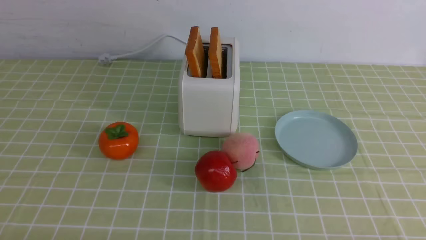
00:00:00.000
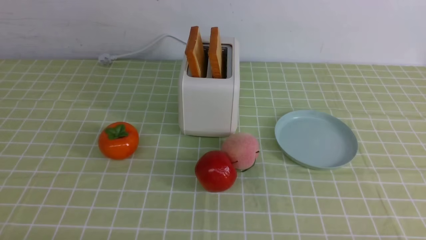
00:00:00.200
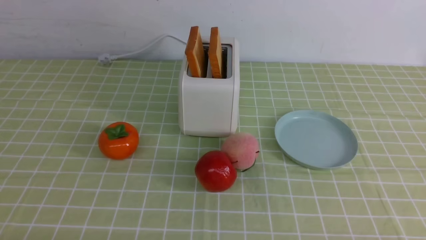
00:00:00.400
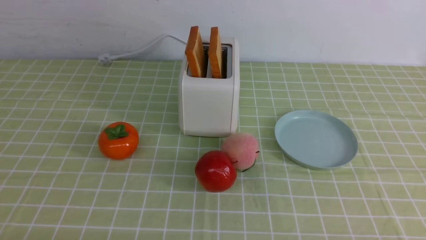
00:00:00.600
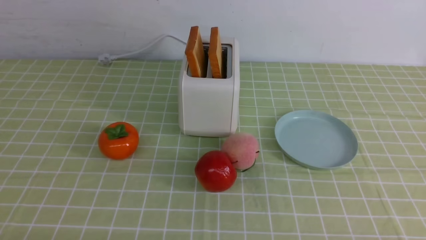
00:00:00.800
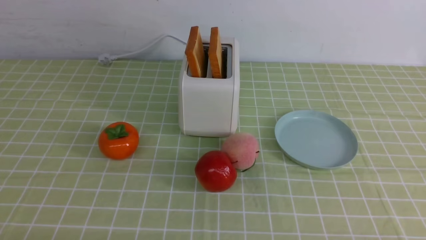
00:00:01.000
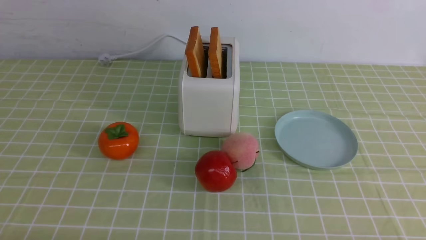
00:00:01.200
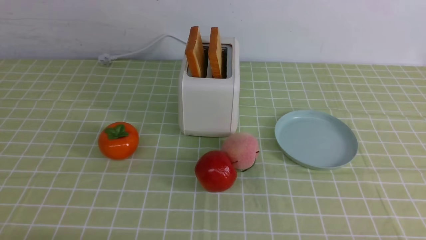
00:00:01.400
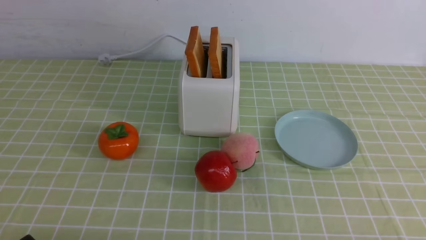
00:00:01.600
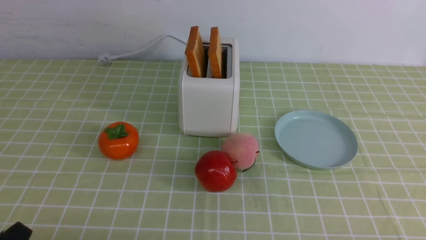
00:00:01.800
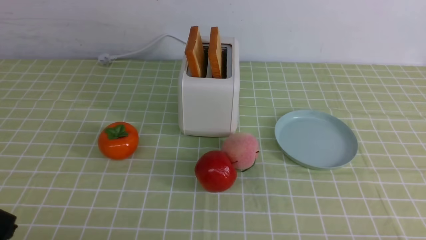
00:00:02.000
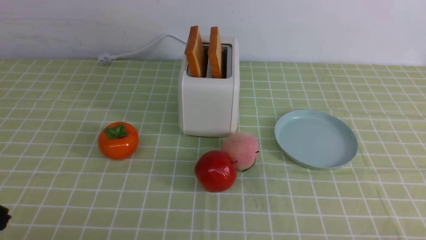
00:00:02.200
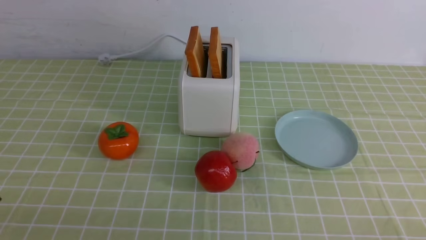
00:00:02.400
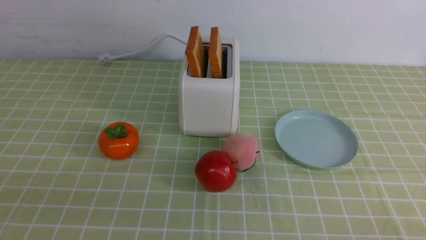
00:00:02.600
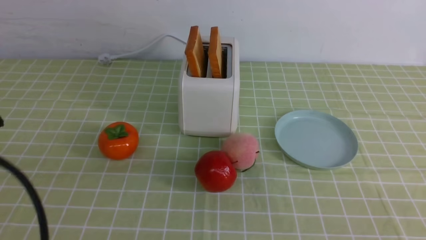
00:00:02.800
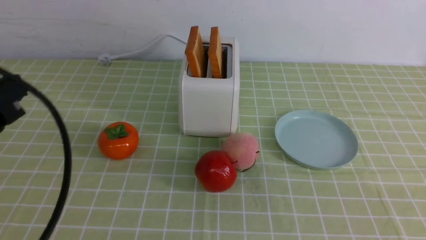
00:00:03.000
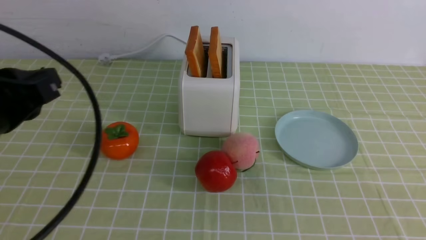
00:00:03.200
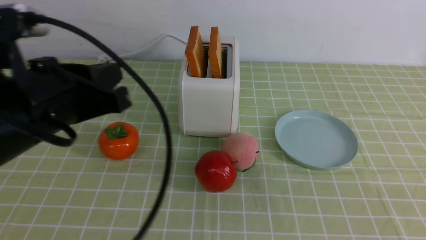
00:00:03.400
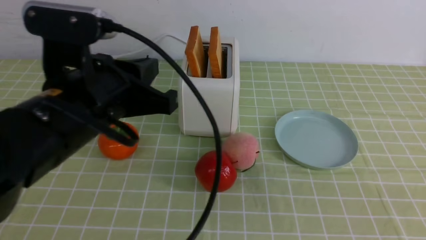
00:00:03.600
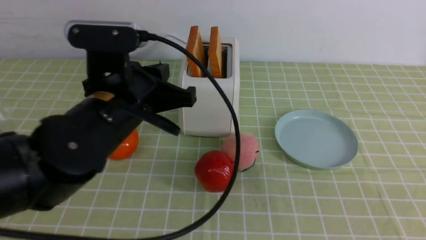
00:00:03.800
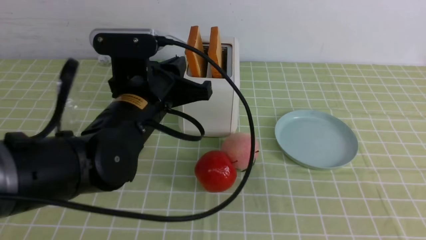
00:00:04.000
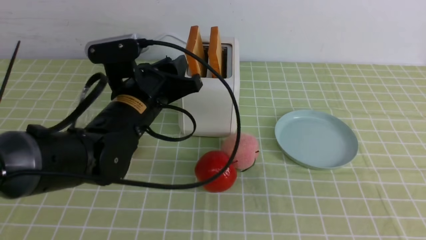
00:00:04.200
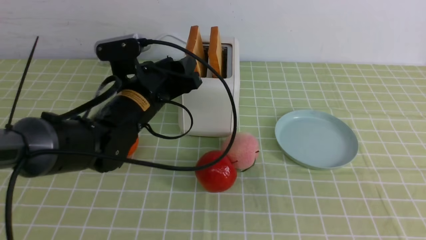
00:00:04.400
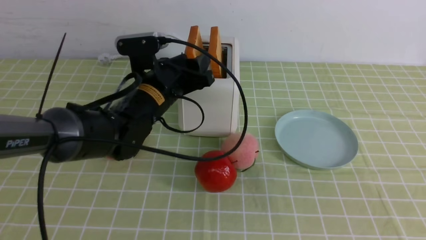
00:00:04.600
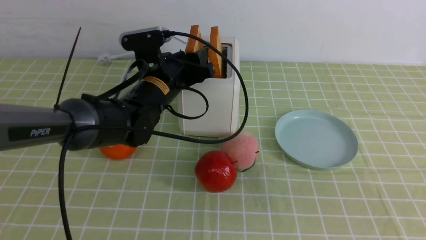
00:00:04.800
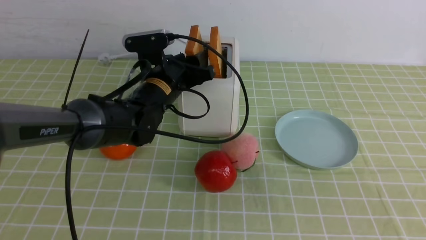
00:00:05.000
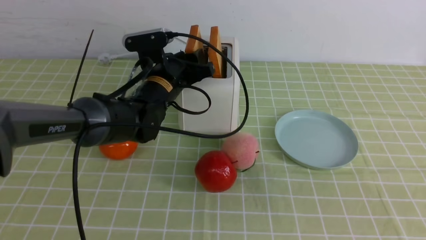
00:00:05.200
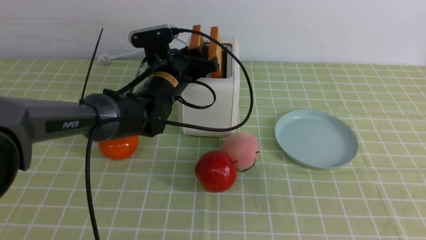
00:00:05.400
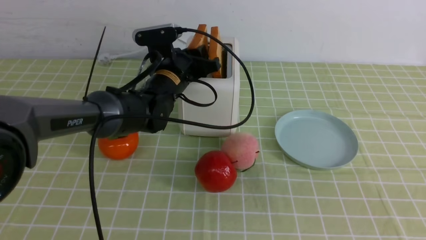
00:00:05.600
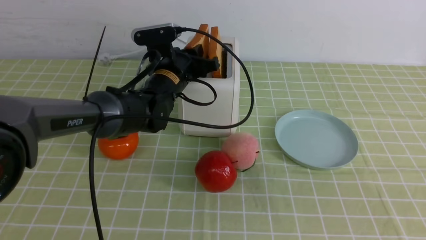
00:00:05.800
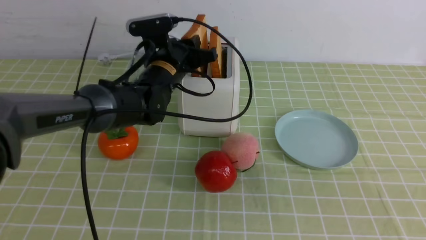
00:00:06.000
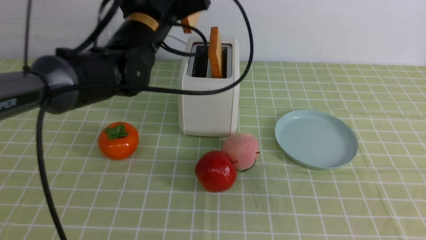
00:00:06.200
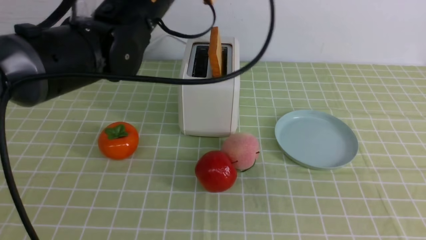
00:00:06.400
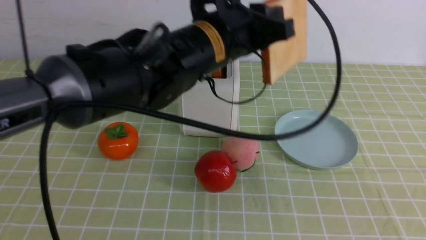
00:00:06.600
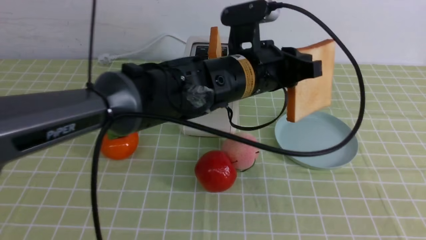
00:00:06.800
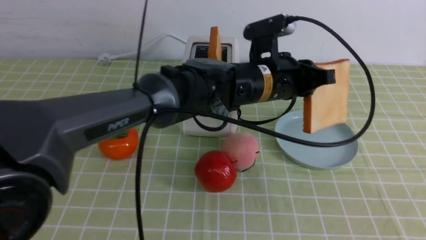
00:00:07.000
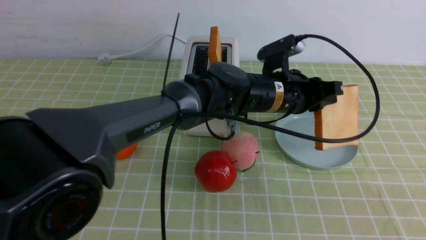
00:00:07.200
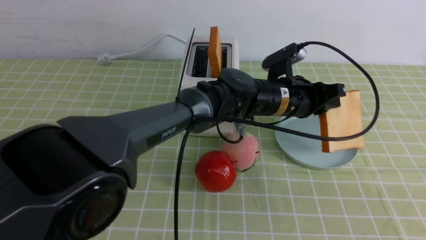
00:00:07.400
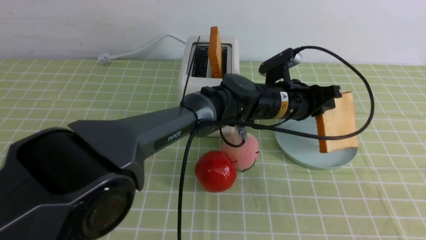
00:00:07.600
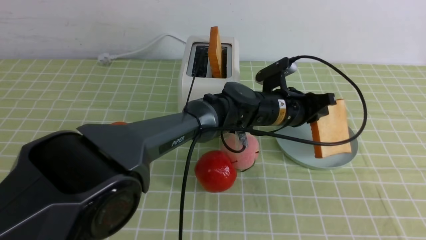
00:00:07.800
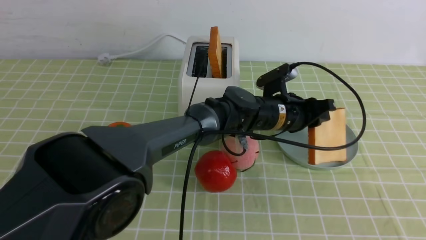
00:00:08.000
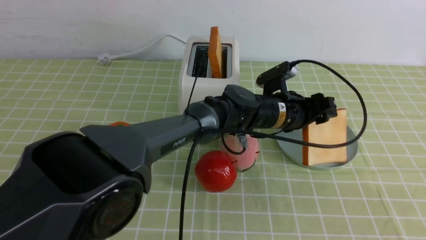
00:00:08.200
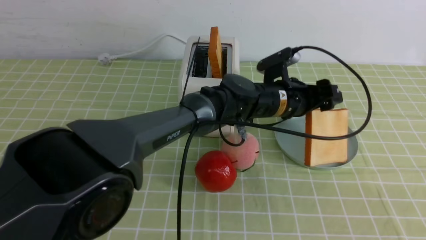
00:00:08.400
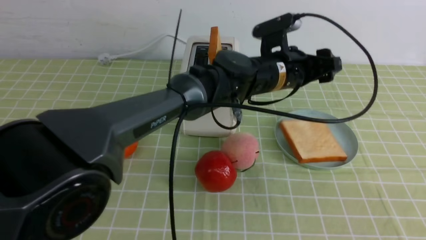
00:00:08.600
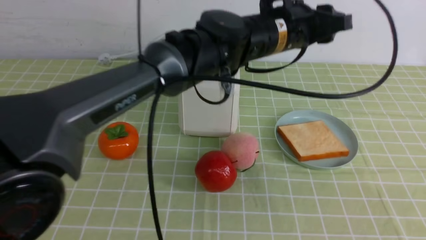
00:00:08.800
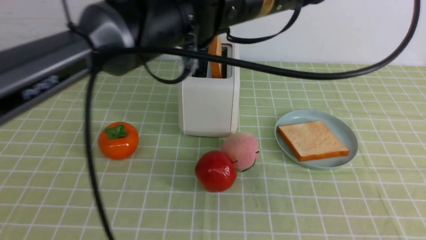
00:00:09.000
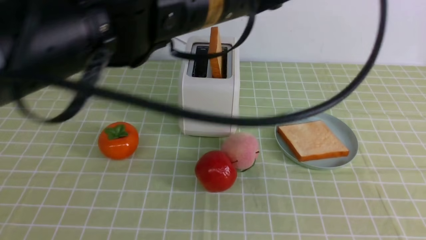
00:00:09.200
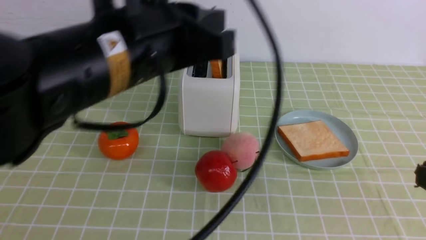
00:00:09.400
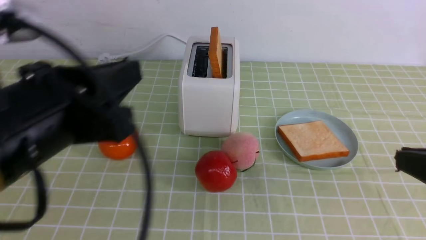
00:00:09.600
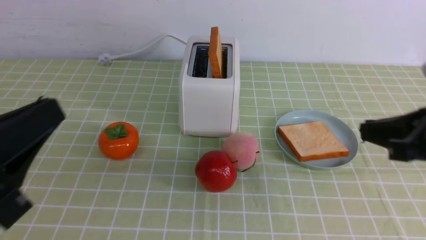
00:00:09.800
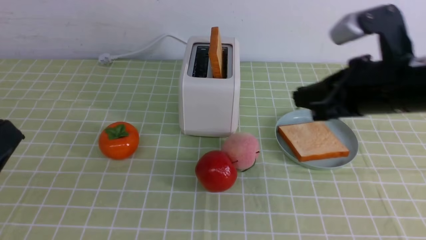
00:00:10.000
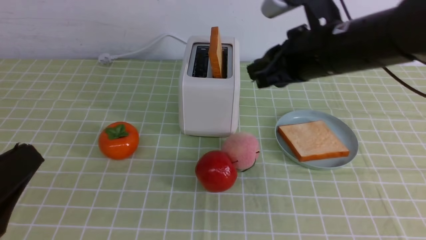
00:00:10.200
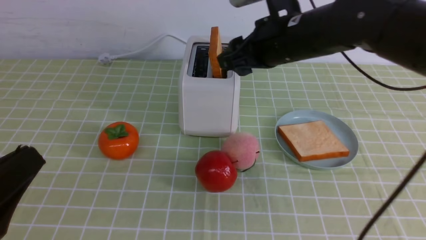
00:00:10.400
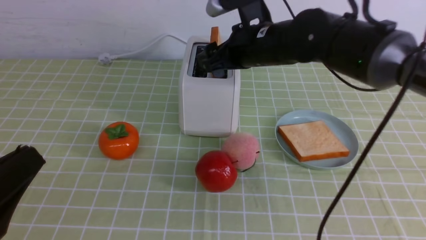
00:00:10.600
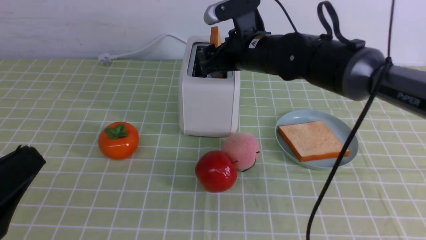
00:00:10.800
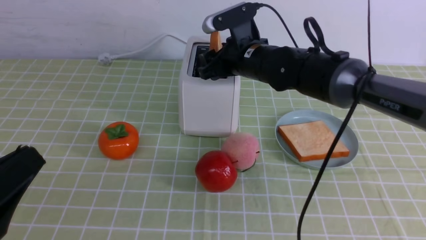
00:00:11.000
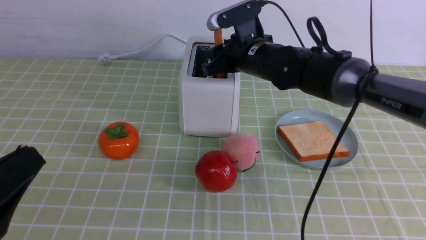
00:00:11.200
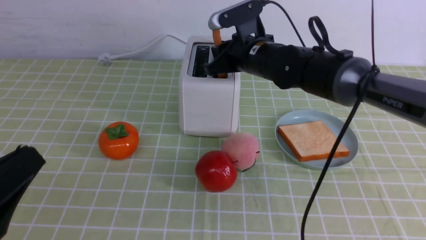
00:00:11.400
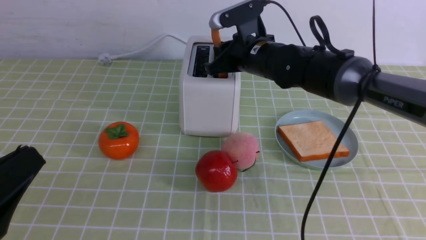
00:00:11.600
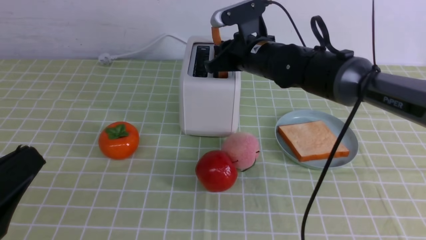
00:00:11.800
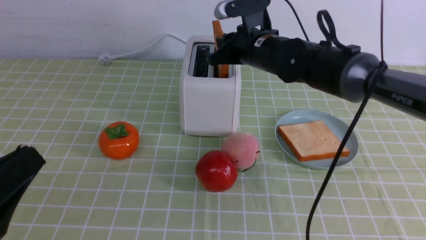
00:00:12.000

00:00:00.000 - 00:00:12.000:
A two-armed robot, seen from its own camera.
Task of the whole recording: take toasted bread from bread machine on green coffee tablecloth place on plate.
Step, 00:00:00.000 - 00:00:06.200: use the left arm to take out a slice of bread.
Step, 00:00:06.400 - 00:00:08.600: use the left arm to put a slice of bread into the empty plate.
00:00:01.600 - 00:00:03.000: The left gripper moves upward and forward, about 20 cm, and closes its fingers.
00:00:03.000 - 00:00:04.400: The left gripper is displaced forward, to the right and downward by approximately 25 cm, and opens.
00:00:04.400 - 00:00:06.000: The left gripper is displaced forward by roughly 5 cm, and closes.
00:00:06.000 - 00:00:07.600: The left gripper heads to the right, covering some 20 cm.
00:00:07.600 - 00:00:09.000: The left gripper moves upward and to the left, roughly 20 cm, and opens, then closes again.
00:00:09.000 - 00:00:10.400: The left gripper is displaced to the left, backward and downward by approximately 40 cm, while the right gripper goes roughly 35 cm forward and to the left, and opens its fingers.
00:00:10.400 - 00:00:12.000: The right gripper travels forward by roughly 5 cm, and closes its fingers.

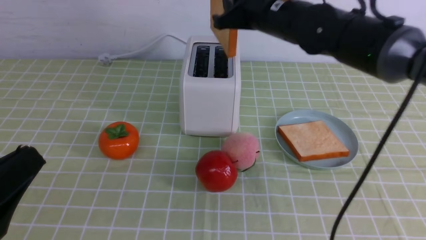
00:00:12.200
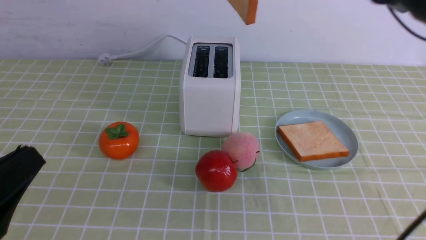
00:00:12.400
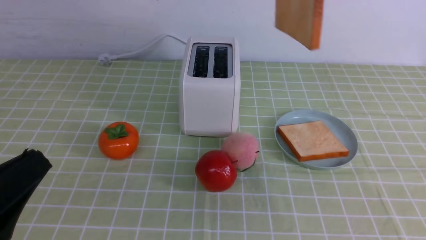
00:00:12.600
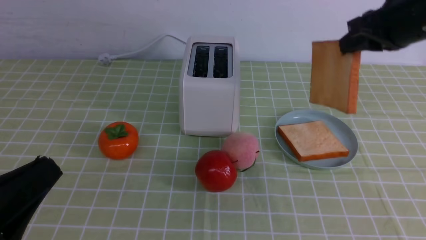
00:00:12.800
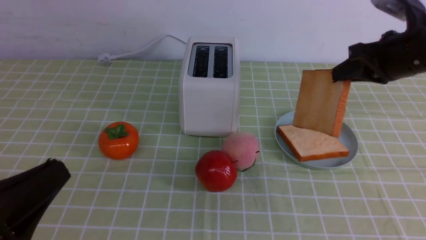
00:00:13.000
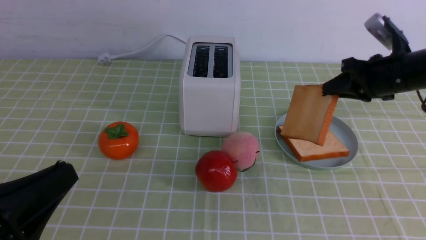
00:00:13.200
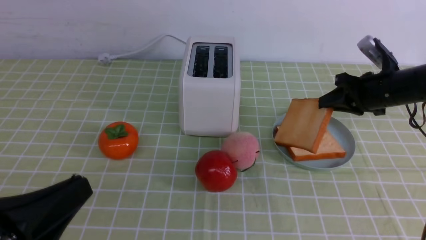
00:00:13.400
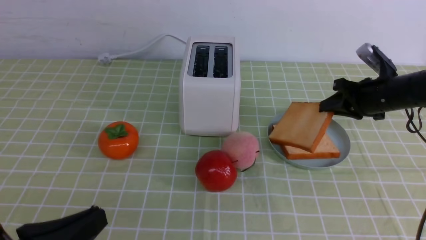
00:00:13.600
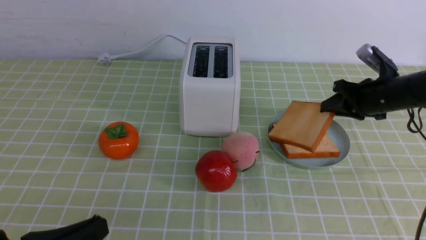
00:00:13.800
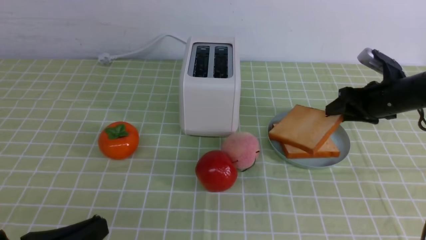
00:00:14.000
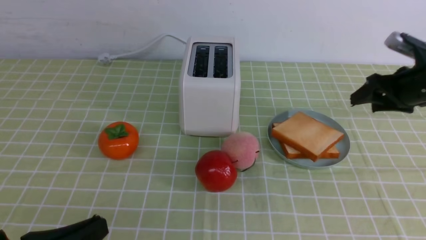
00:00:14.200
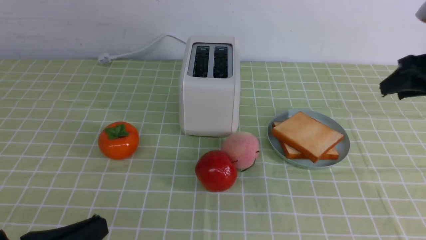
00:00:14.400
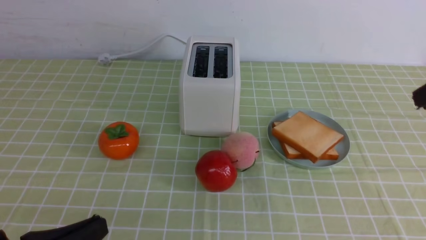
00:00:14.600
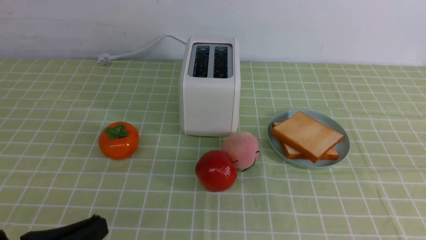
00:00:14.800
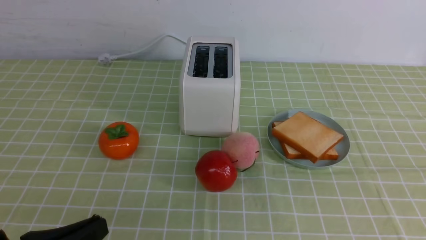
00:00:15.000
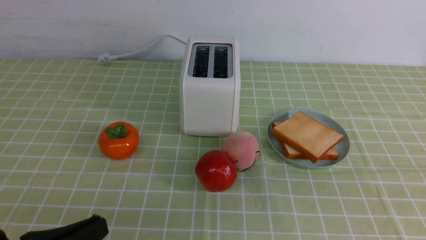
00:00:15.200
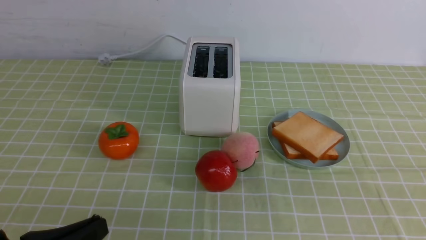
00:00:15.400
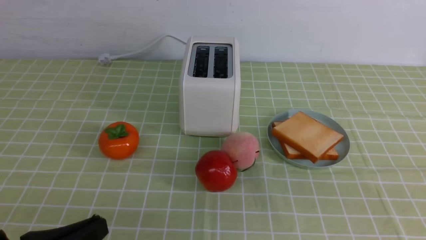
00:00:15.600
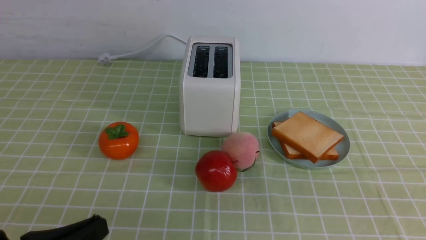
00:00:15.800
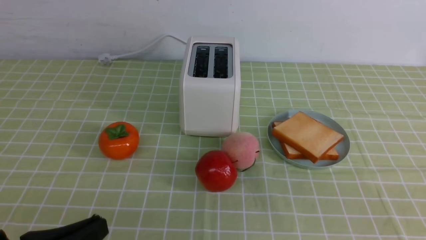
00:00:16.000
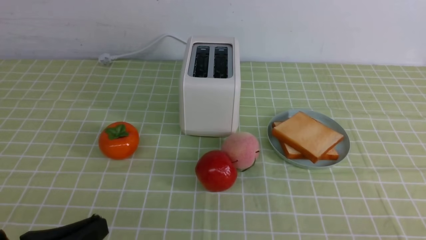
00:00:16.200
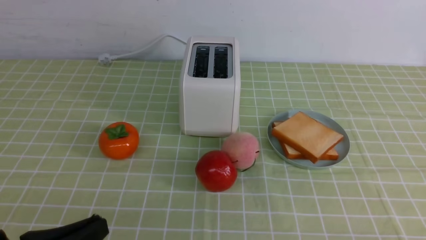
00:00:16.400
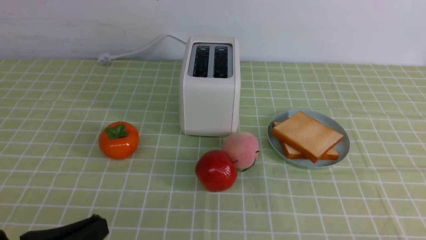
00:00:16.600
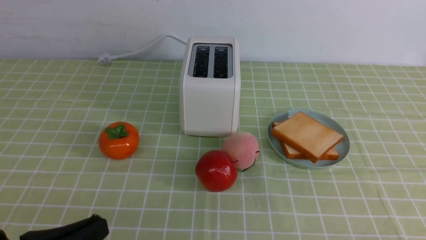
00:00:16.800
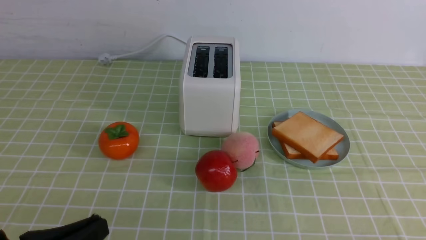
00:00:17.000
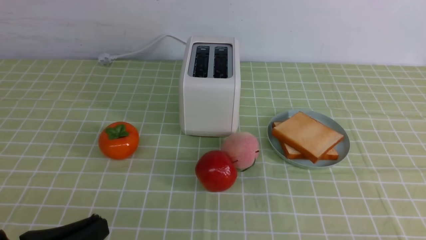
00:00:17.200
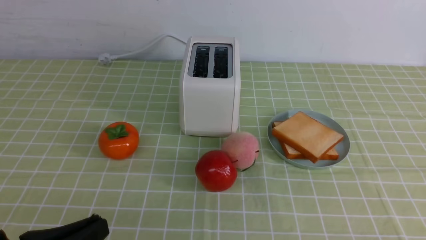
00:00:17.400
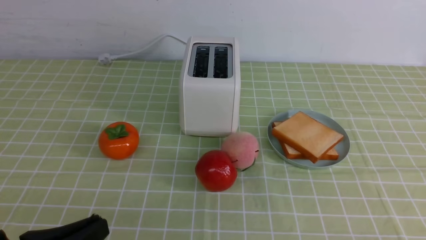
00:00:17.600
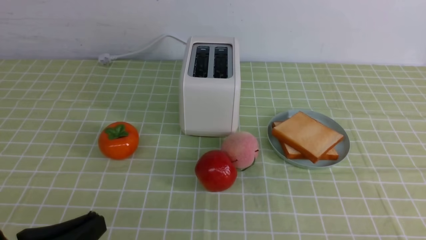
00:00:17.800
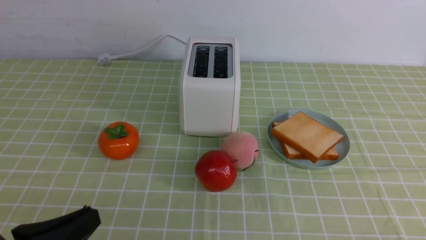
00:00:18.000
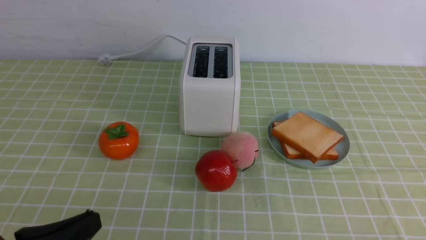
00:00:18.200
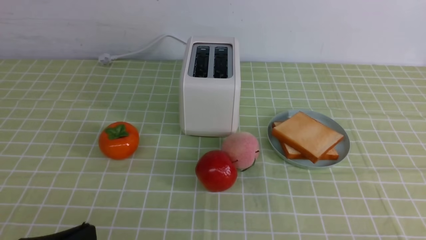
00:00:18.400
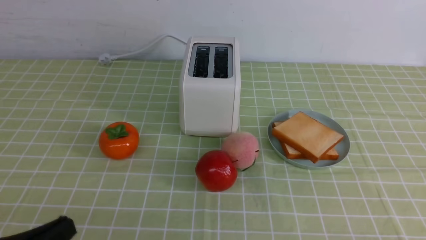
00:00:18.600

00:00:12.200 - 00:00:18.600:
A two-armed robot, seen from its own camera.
Task of the whole recording: take toasted bread from bread machine on green coffee tablecloth place on plate.
Step, 00:00:12.400 - 00:00:14.200: use the right arm to put a slice of bread into the plate.
00:00:12.200 - 00:00:13.800: The left gripper goes about 5 cm downward; the right gripper goes approximately 25 cm to the right and downward.
00:00:13.800 - 00:00:15.400: The right gripper is displaced backward by some 35 cm, and closes up.
00:00:17.000 - 00:00:18.600: The grippers make only small movements.
